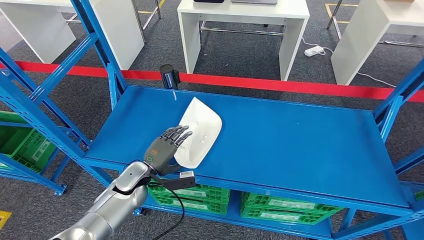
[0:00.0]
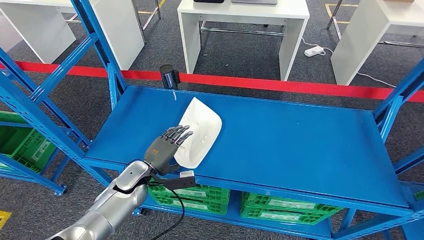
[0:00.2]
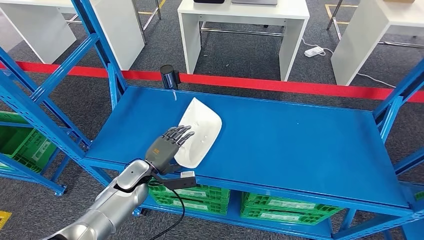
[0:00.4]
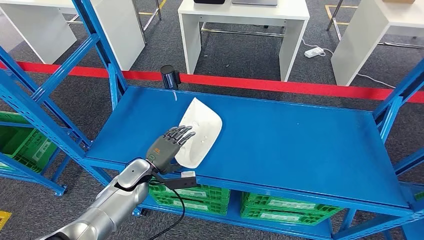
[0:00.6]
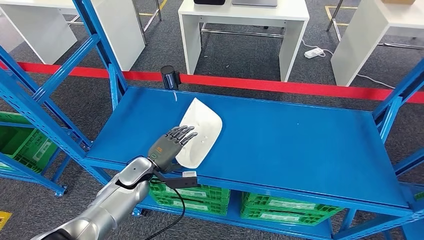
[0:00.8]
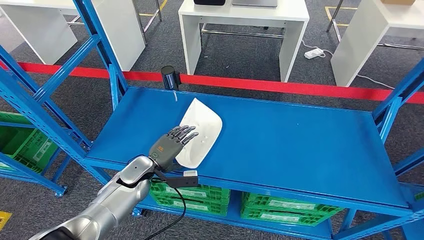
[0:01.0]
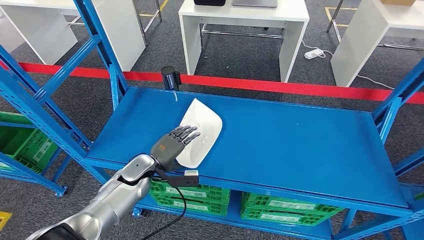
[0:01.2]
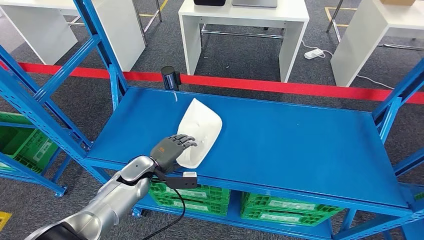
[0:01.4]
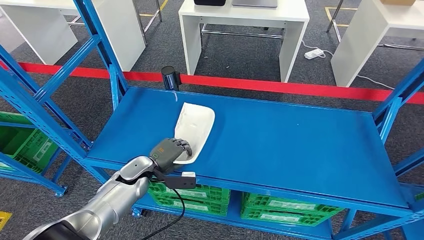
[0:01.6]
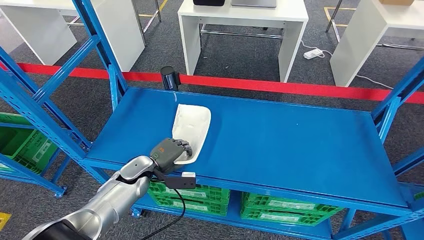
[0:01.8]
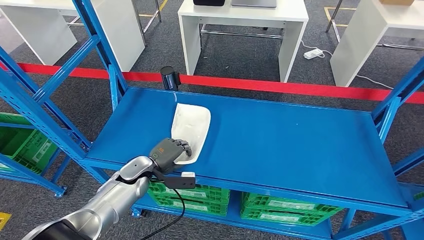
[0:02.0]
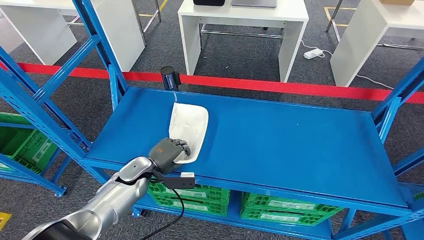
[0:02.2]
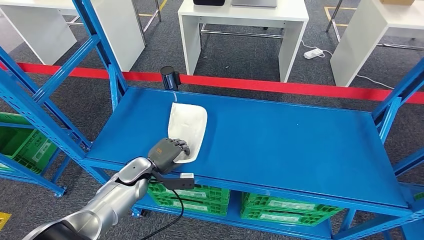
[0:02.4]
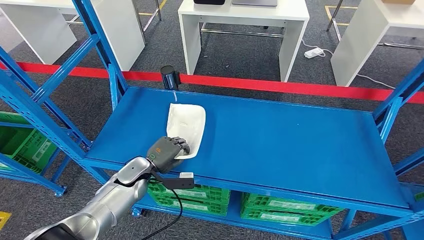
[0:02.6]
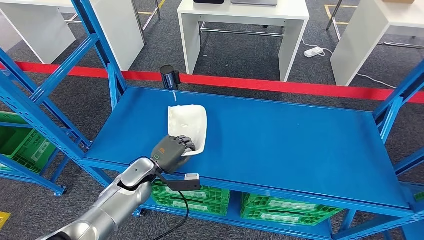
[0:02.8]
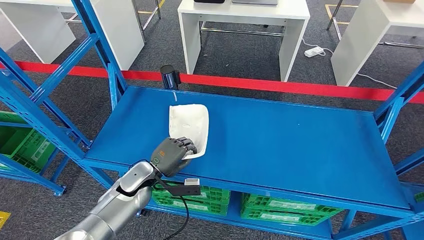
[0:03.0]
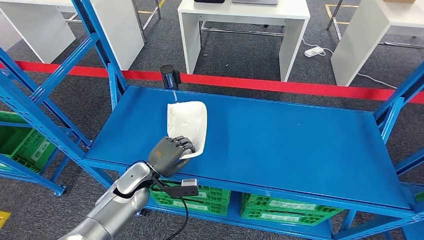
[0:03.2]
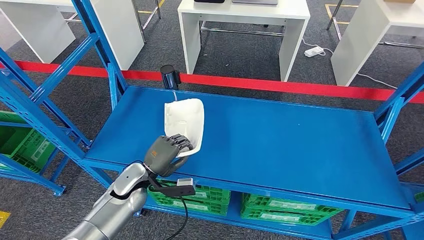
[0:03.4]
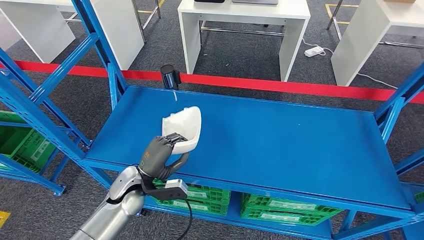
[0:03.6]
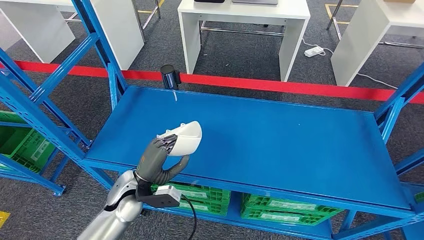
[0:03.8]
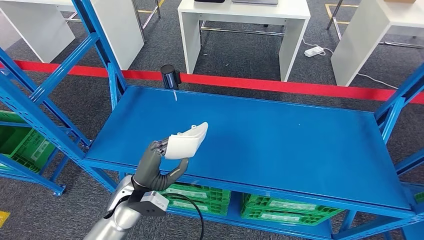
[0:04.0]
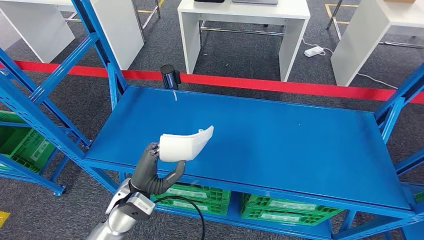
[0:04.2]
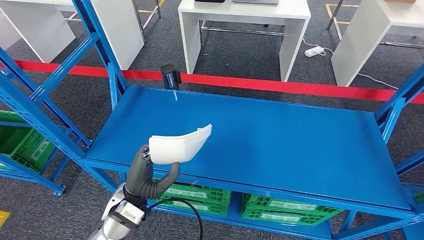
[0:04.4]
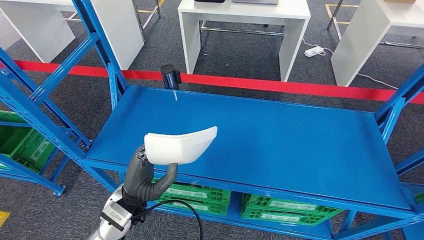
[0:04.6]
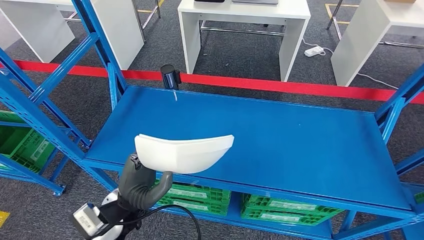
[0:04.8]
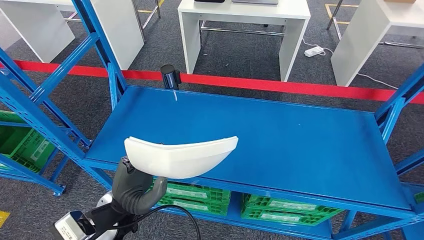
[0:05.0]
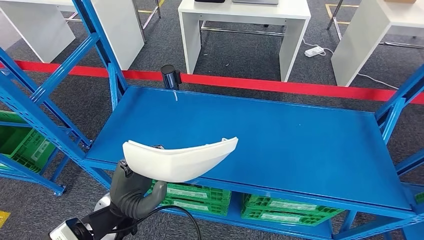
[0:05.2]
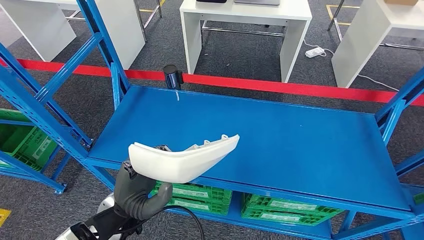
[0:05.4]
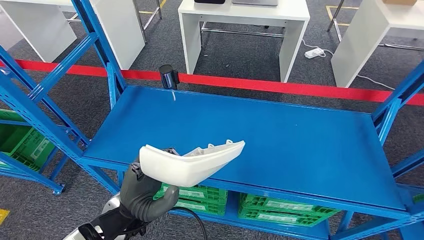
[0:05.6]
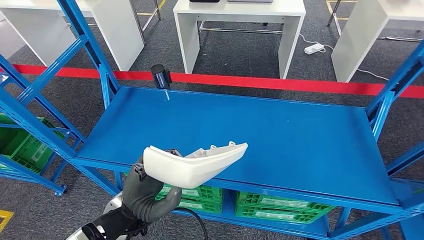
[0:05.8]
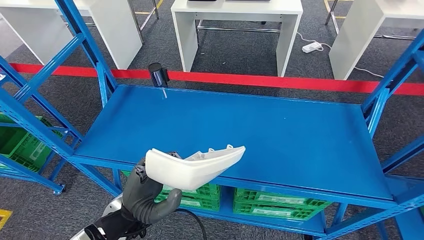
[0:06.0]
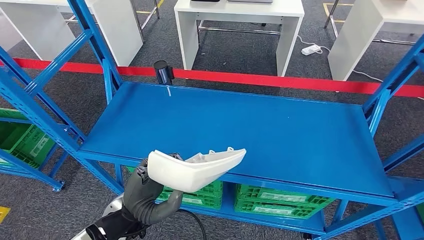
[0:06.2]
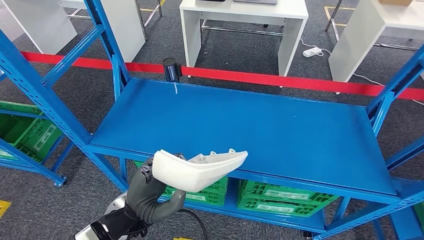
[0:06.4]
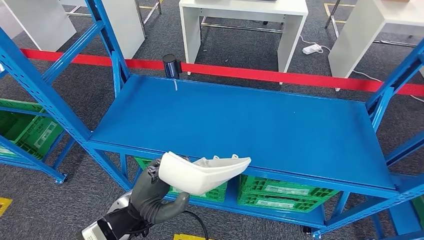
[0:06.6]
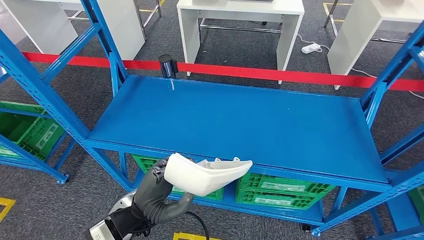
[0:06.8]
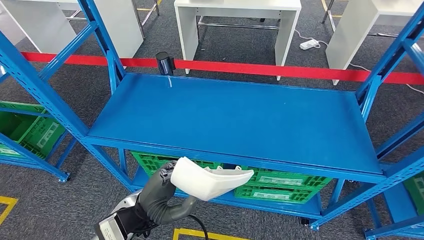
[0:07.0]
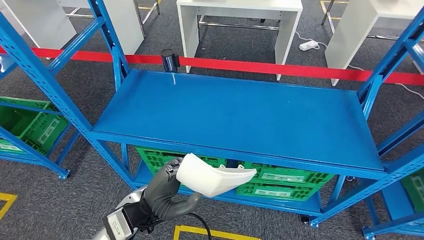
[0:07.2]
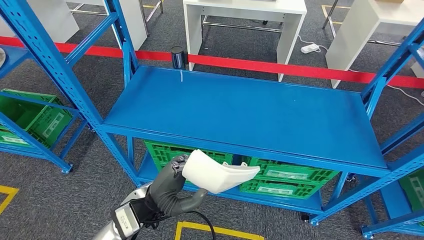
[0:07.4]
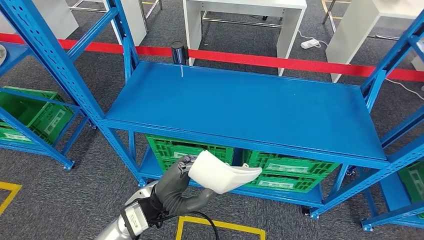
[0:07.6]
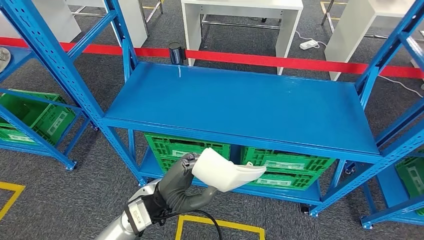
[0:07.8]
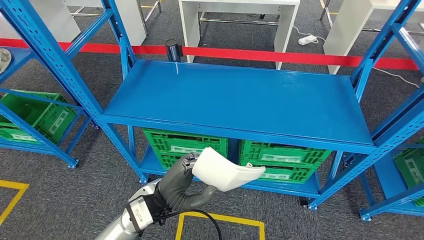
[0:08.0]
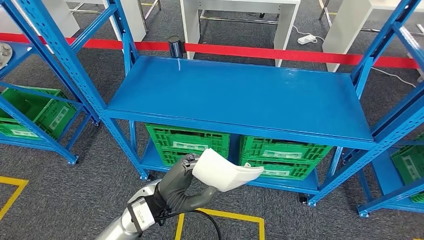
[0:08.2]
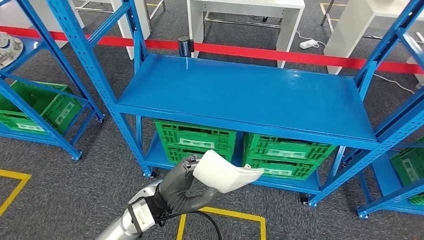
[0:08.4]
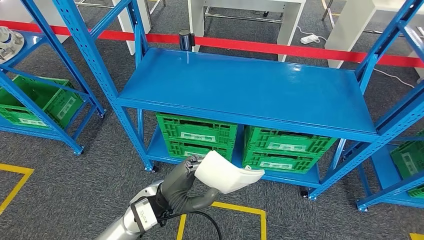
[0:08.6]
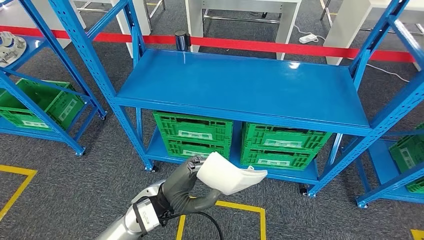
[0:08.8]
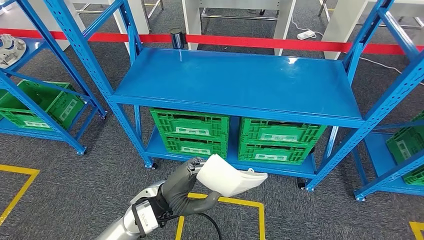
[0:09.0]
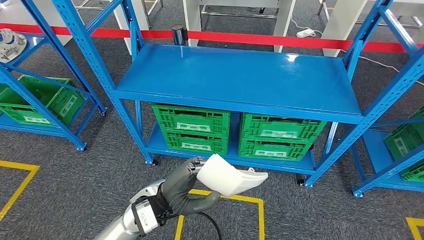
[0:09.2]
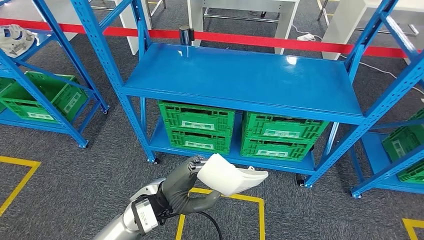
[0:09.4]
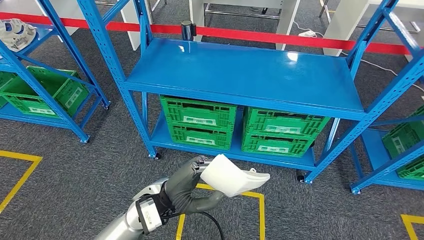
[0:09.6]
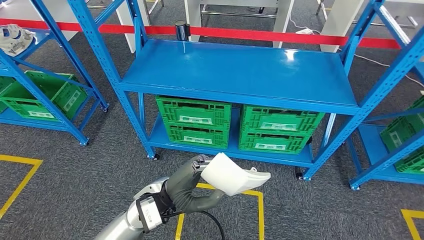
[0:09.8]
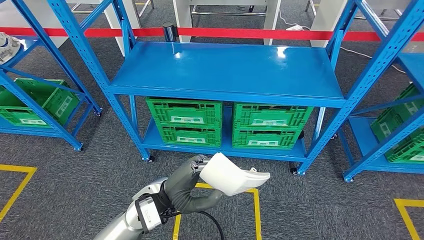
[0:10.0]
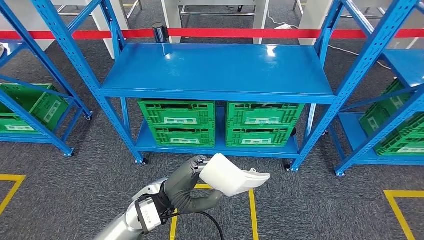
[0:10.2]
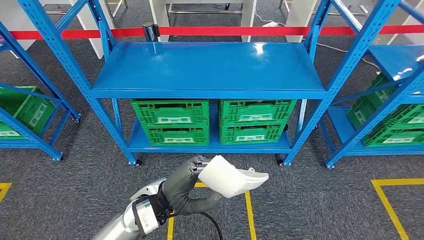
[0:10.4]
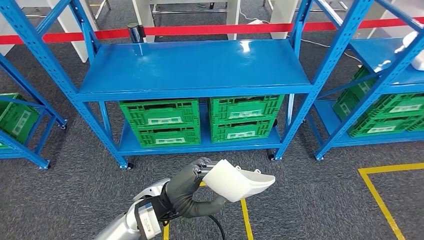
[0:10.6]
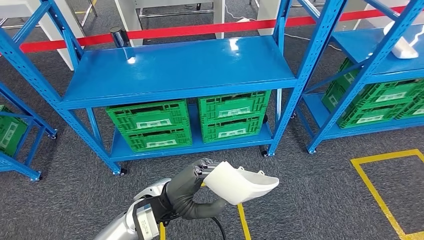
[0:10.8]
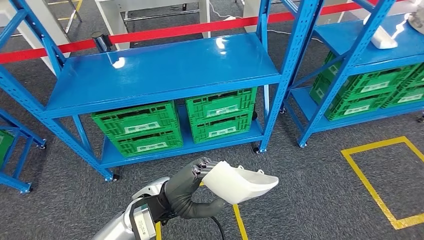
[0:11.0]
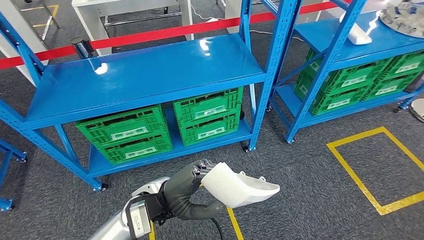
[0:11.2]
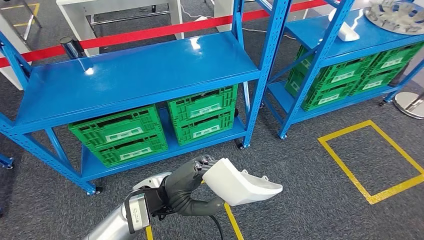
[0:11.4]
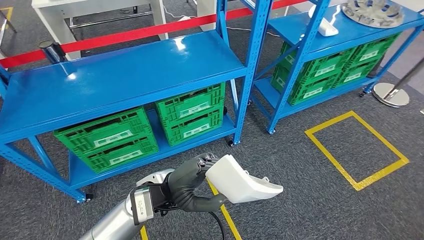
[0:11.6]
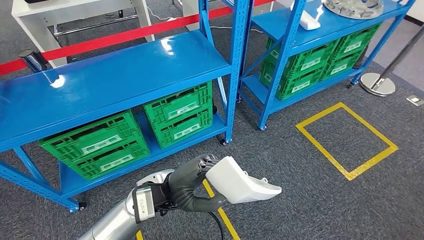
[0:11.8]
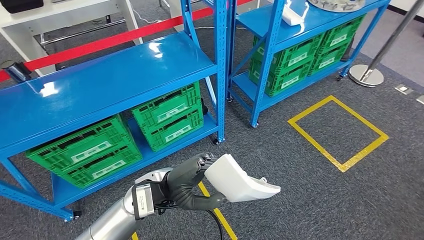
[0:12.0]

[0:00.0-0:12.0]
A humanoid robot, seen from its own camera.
Step, 0:00.0 to 0:03.6: Take small components from the rack.
0:00.0 to 0:03.0: There are only small adjustments of the hands.
0:03.0 to 0:04.4: The left hand goes approximately 10 cm backward and upward.

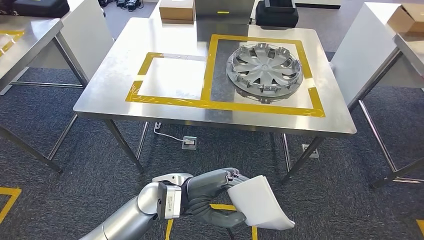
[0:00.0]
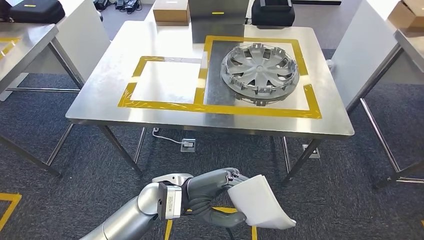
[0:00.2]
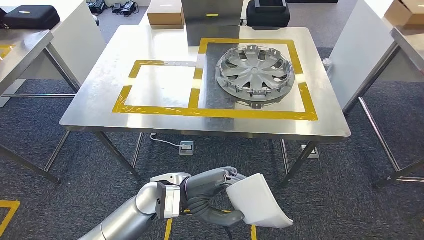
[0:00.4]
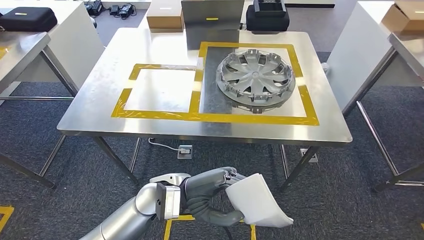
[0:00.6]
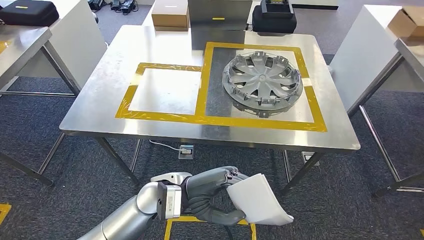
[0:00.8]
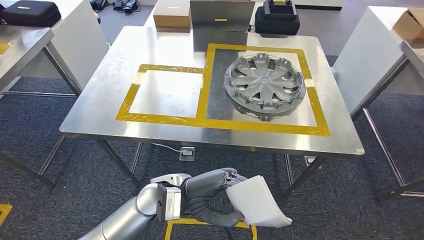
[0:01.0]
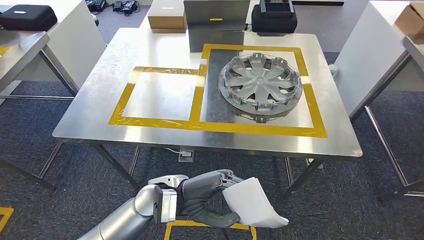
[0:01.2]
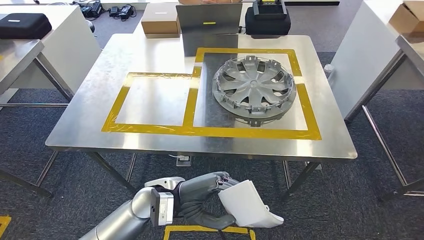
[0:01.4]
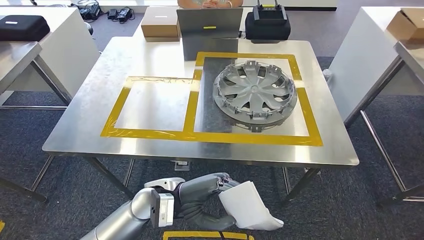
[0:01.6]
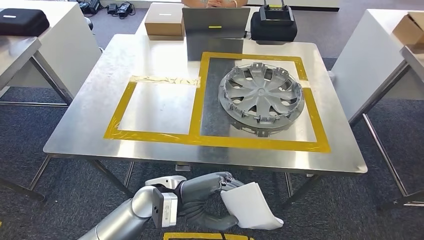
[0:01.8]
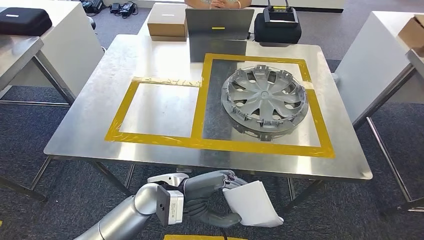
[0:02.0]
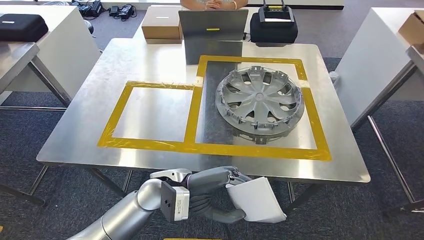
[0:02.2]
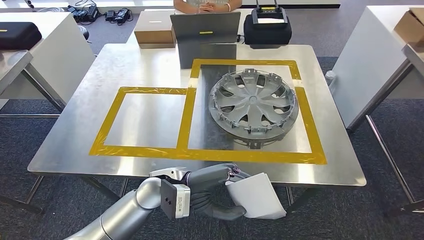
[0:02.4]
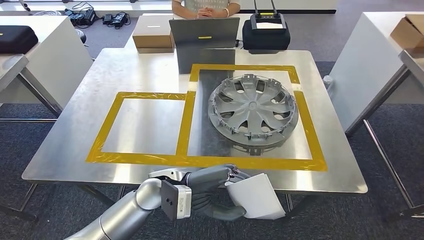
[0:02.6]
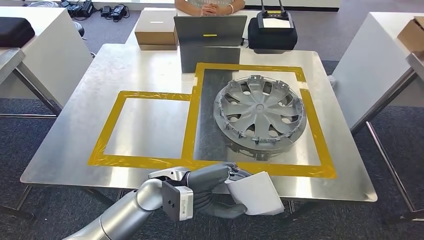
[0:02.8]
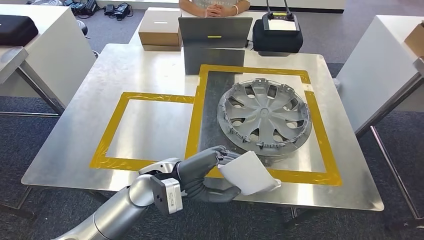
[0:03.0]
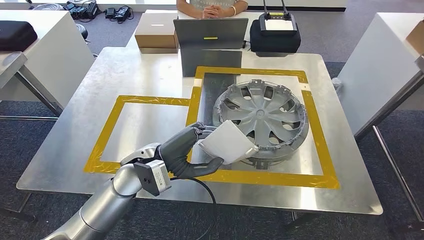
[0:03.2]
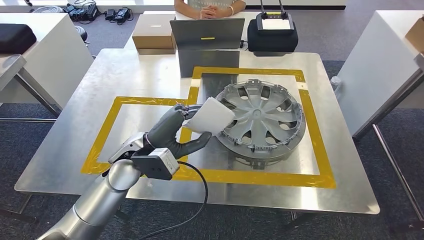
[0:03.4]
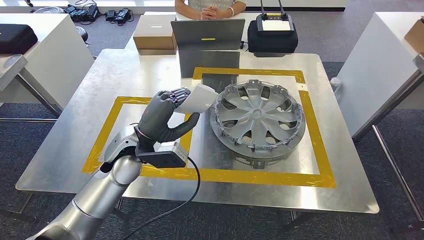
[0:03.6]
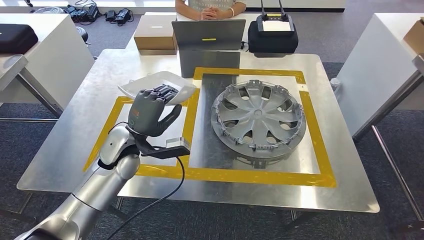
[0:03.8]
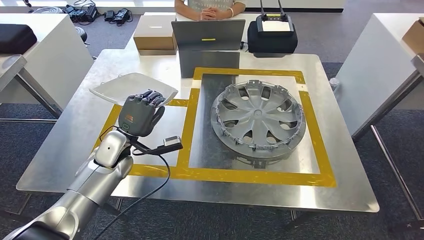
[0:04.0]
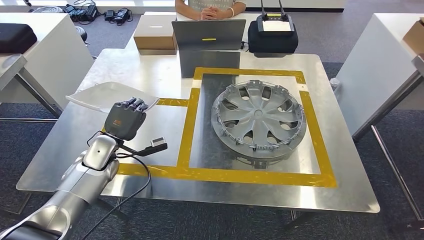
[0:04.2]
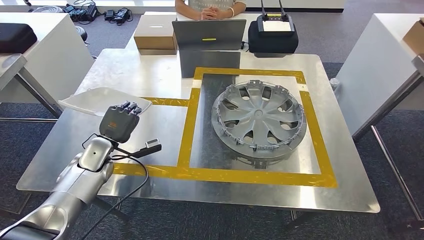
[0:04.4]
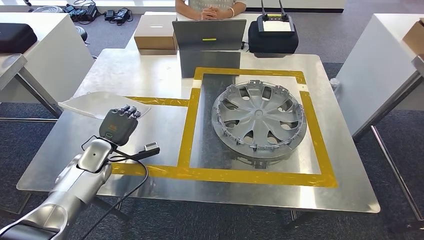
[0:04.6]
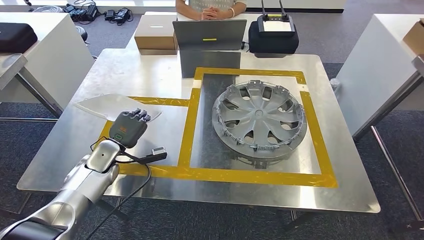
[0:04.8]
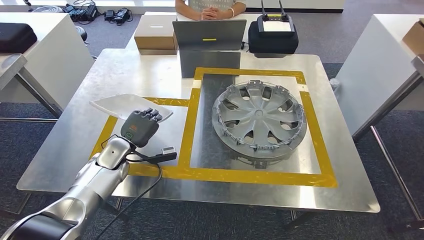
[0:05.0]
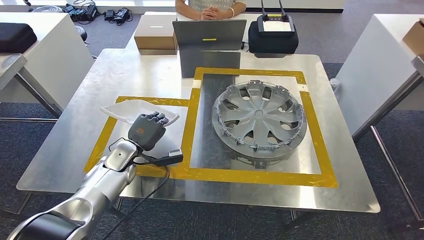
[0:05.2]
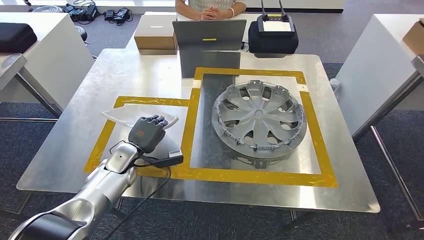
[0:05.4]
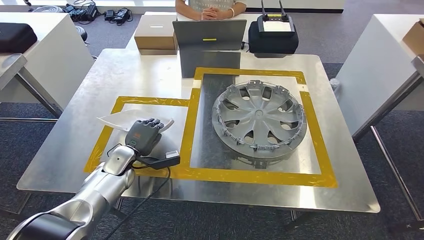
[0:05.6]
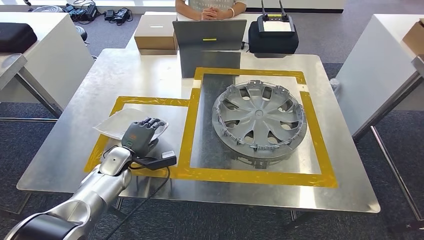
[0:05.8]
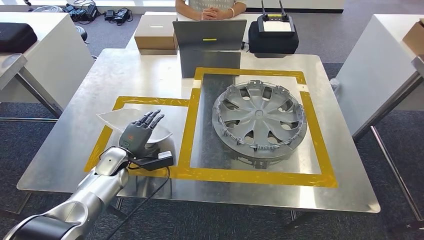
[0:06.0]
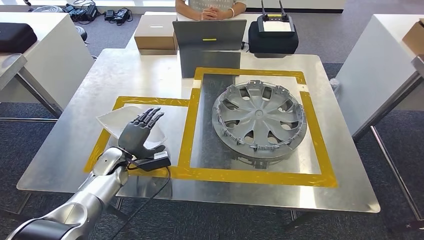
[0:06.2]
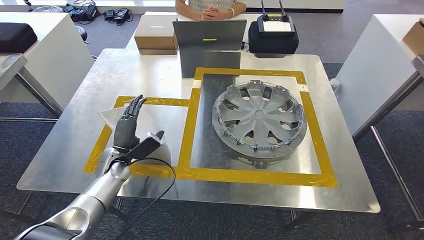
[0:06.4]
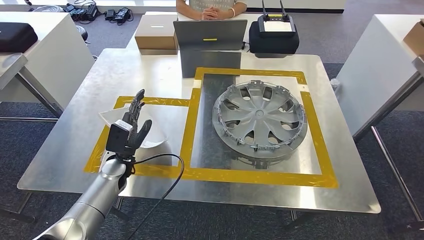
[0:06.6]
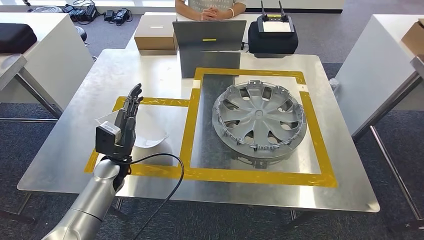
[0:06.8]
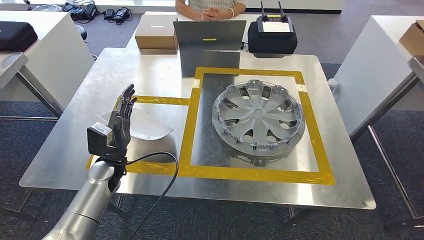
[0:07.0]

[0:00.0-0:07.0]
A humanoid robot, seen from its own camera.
Step, 0:00.0 to 0:03.0: Move the small parts to the workbench.
0:04.2 to 0:05.6: The left hand travels downward by some 5 cm.
0:05.6 to 0:07.0: The left hand shifts by approximately 5 cm.
